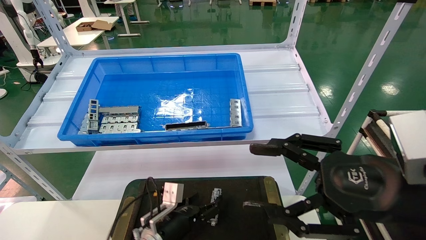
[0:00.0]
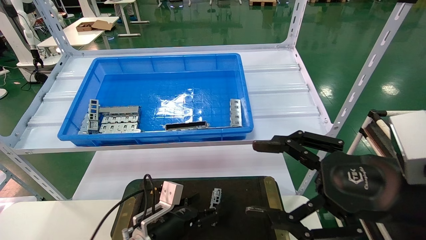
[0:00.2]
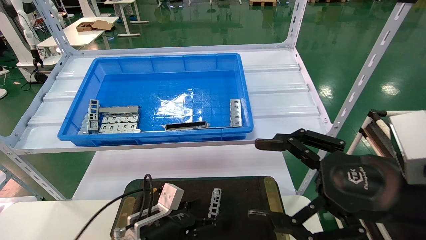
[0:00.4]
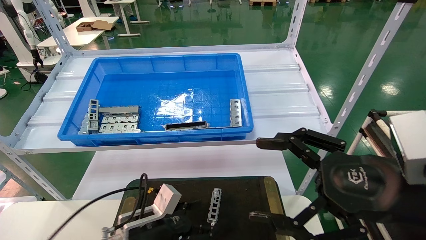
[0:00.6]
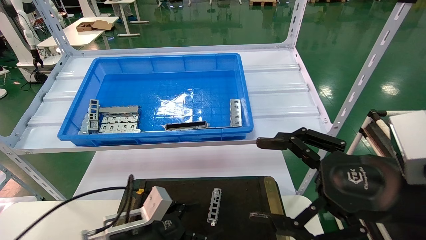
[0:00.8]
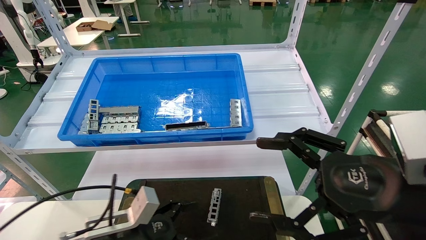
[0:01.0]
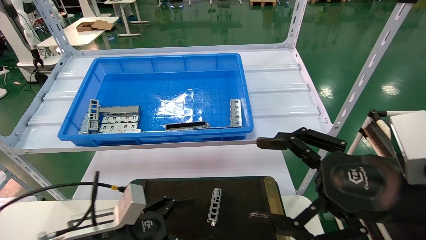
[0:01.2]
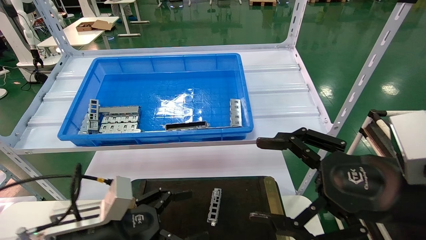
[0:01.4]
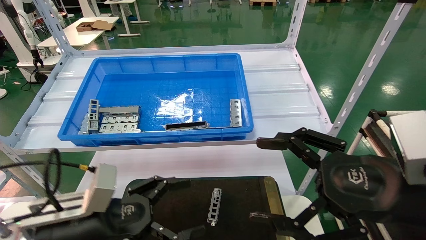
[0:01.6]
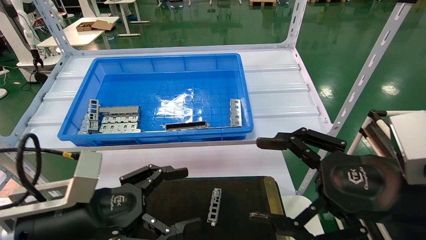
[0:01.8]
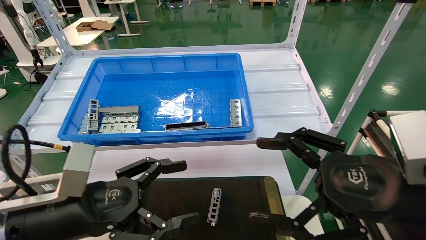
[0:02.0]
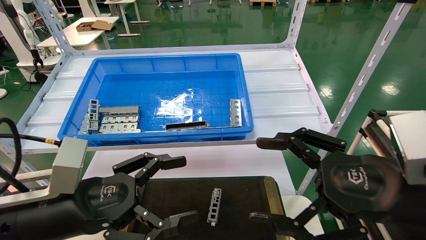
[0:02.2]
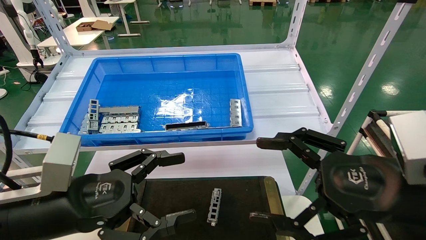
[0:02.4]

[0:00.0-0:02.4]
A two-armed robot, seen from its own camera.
Task of the whole recording: Grasp the part with one hand and place it on the black container.
0:00.0 to 0:01.2: The right gripper opens. Meanwhile the left gripper shifts some 15 cm upward, backward and to the left.
0:01.2 to 0:02.4: The left gripper moves upward, approximately 10 cm.
